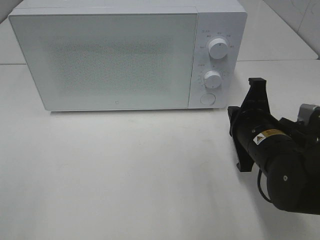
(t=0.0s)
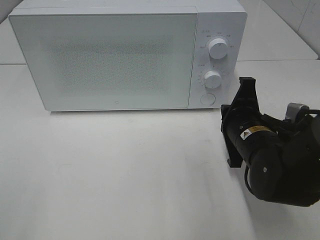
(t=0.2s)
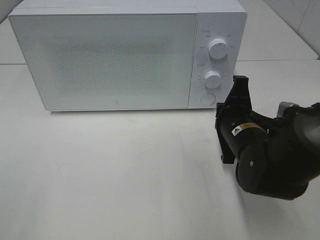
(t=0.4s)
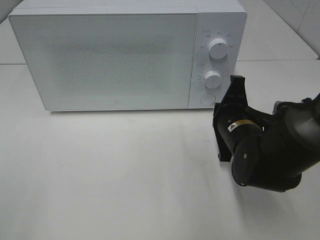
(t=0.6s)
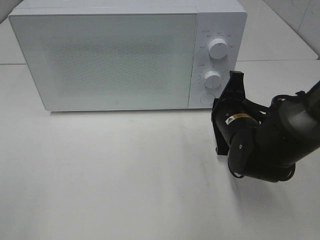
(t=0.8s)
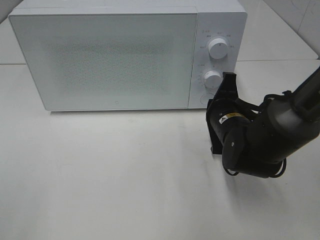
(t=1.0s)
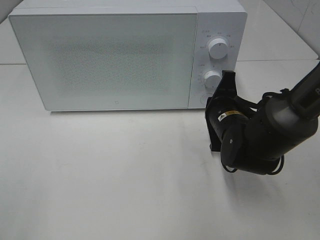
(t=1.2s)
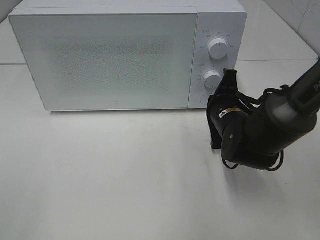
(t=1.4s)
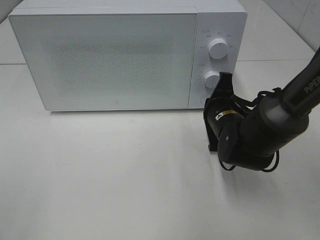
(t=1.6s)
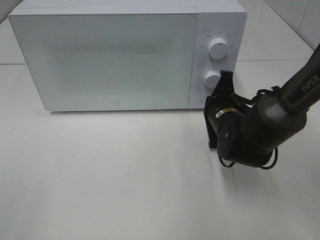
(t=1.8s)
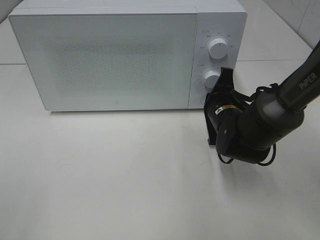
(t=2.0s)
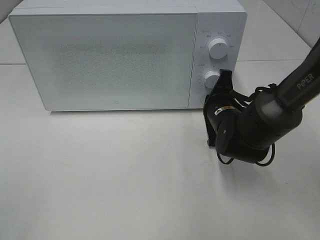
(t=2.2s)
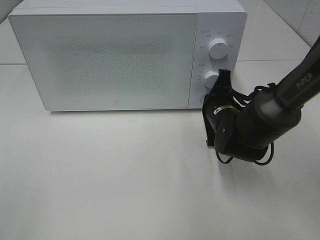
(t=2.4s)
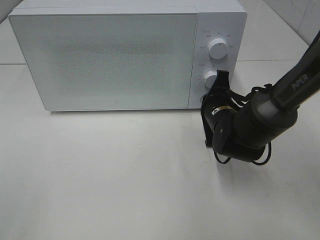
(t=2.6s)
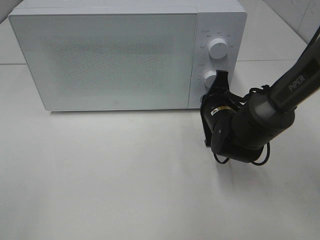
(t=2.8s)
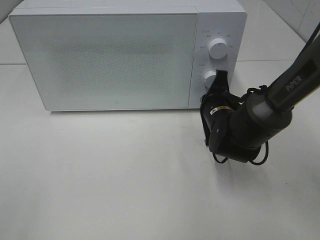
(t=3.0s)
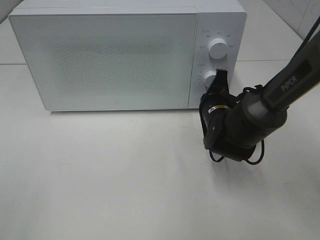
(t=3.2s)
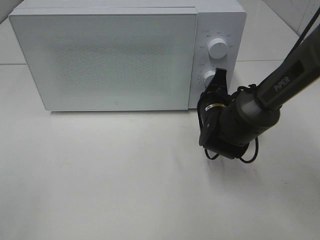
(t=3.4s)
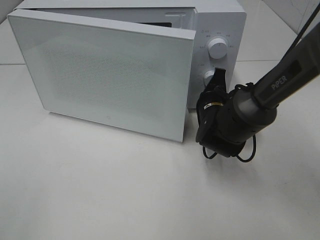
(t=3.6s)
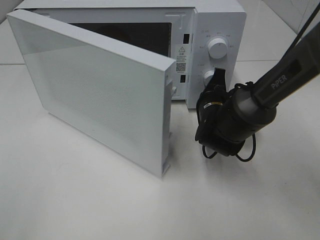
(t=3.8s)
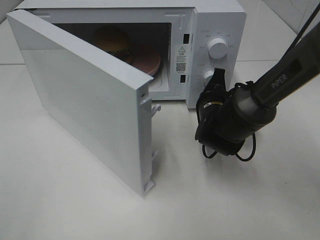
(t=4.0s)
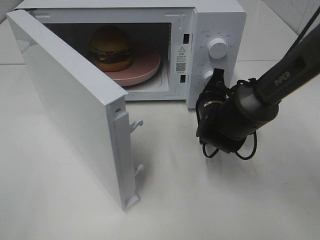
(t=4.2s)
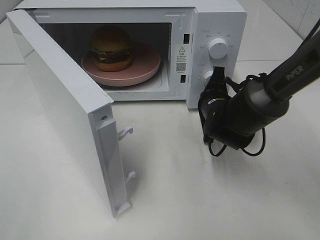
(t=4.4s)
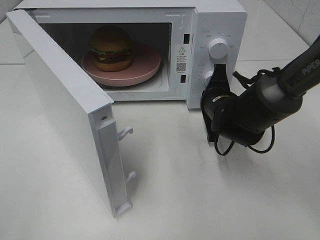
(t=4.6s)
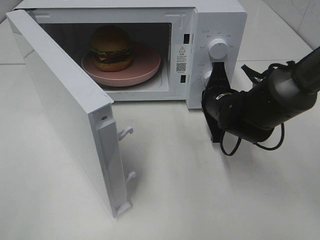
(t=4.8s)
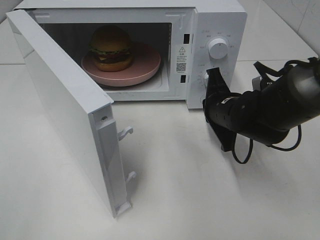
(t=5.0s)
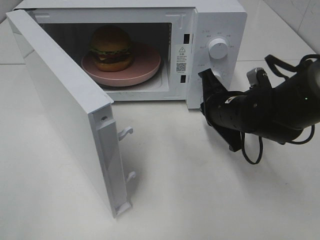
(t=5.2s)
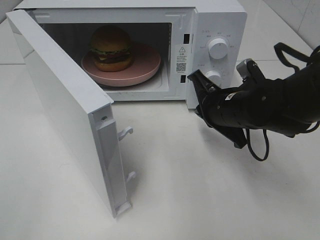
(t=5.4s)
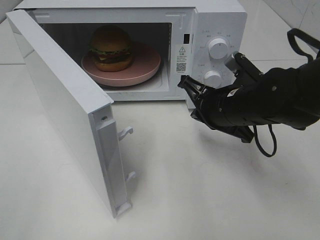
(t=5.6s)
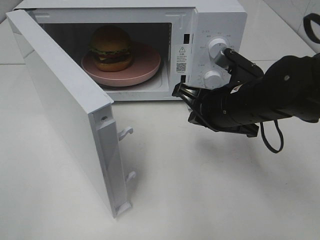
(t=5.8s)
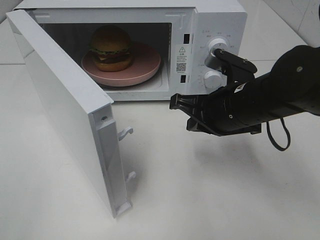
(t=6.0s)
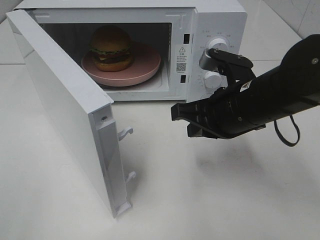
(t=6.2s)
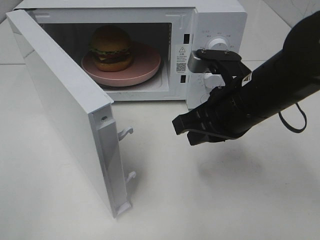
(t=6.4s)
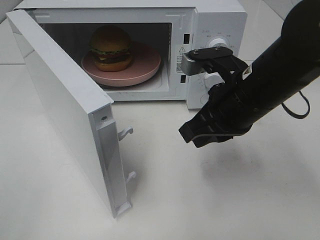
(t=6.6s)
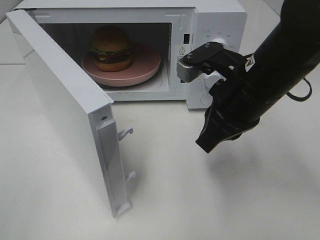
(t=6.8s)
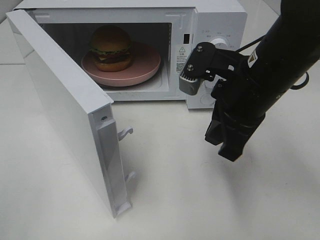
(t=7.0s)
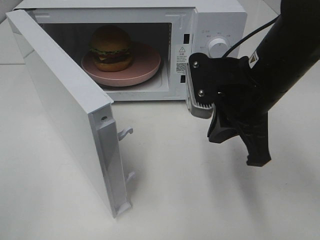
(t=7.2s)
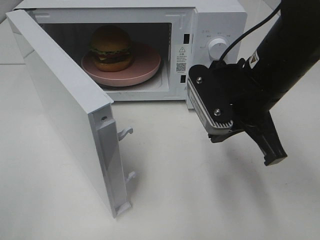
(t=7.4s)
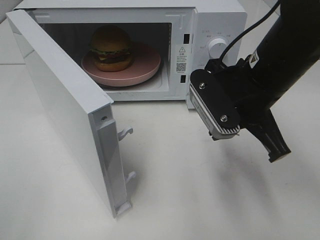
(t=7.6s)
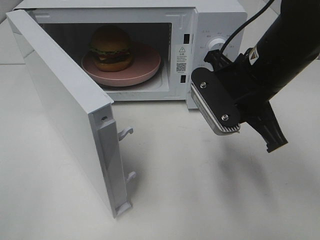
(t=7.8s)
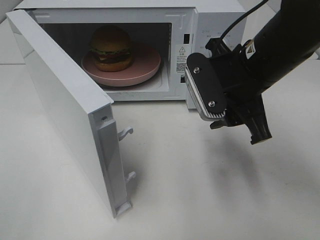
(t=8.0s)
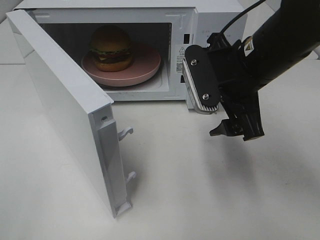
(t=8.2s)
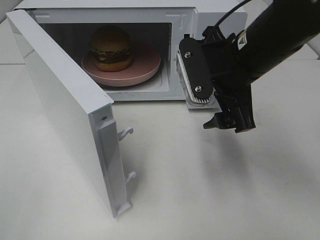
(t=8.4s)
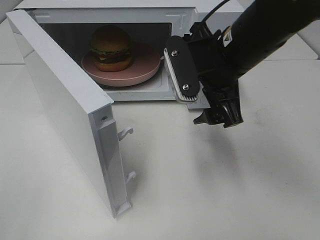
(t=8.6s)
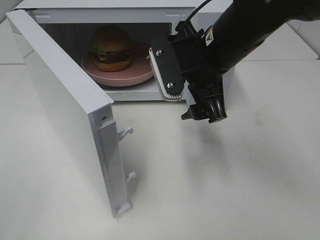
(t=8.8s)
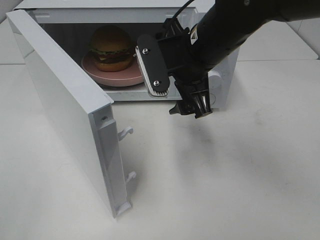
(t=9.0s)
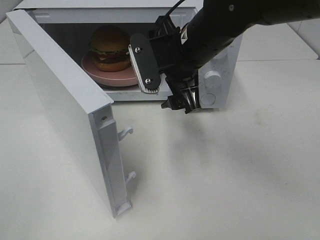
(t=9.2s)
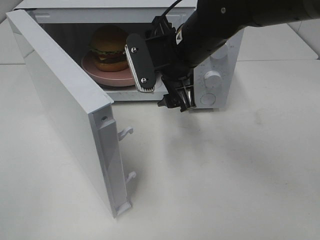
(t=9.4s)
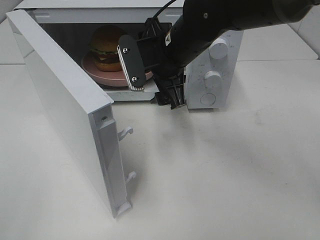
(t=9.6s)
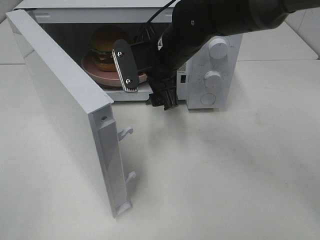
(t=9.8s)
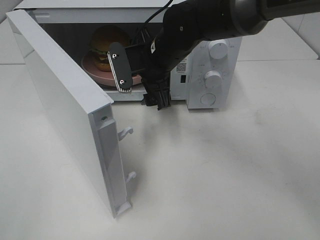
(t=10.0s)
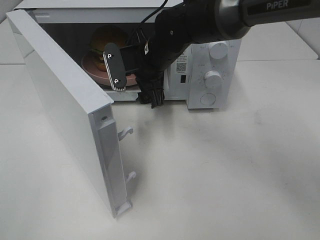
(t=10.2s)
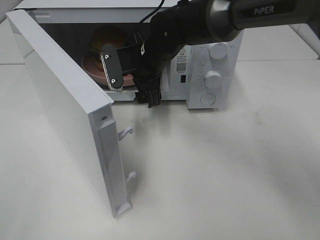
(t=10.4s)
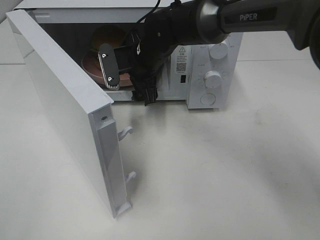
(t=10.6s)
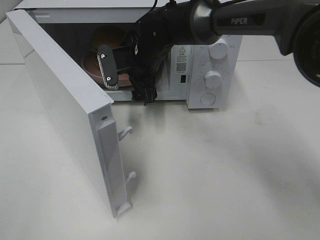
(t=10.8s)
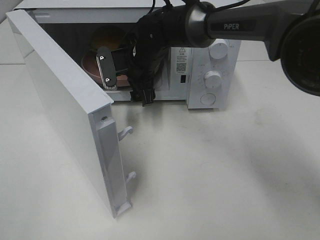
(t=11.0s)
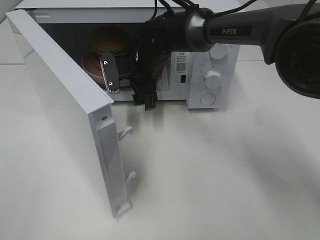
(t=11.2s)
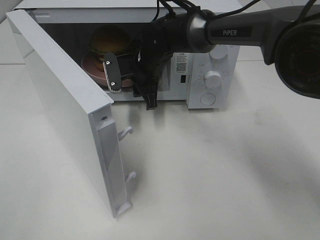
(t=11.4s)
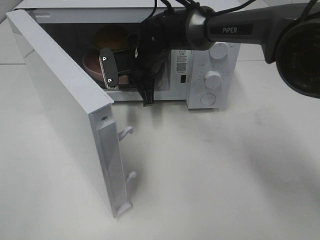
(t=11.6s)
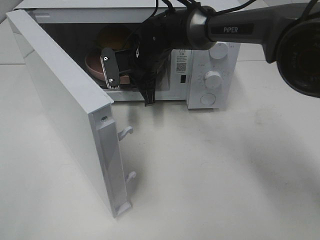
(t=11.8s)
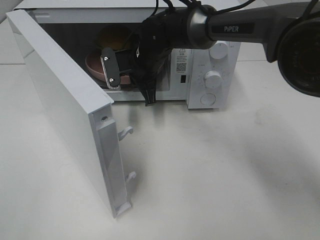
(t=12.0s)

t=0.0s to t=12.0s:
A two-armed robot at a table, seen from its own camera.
Task of the whole recording: Heat the burger.
Step, t=0.0s to t=5.0s: Right hand: press the switch.
Step, t=5.2s to t=11.8s: Right hand: grab the plate with the hamburger.
t=0.0s to t=1.6s: The right gripper shifts some 10 cm forward.
t=1.6s to t=3.0s: There are only small adjustments of the grippers.
t=4.4s to t=6.0s: The right gripper moves backward and upward, roughly 15 cm.
t=6.0s to t=7.6s: The right gripper goes approximately 5 cm upward.
t=7.6s to t=9.0s: The right gripper heads to the left and forward, covering roughly 10 cm, and opens.
t=9.0s to t=10.4s: The right gripper heads forward, downward and to the left, covering roughly 15 cm.
t=10.4s to t=12.0s: The right gripper closes up.

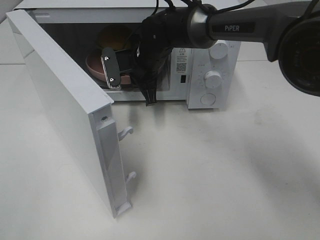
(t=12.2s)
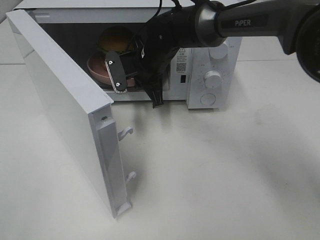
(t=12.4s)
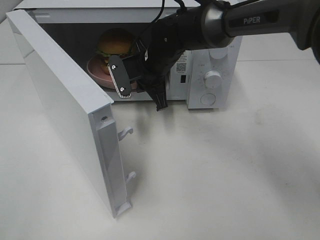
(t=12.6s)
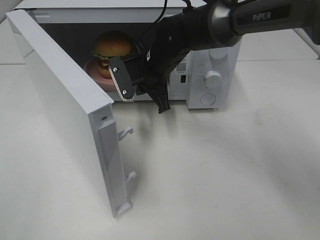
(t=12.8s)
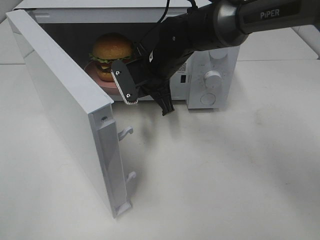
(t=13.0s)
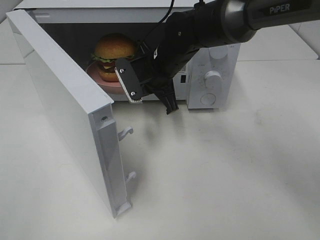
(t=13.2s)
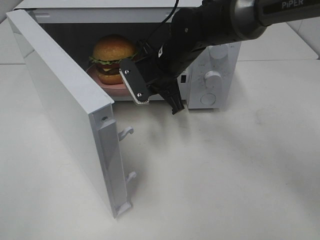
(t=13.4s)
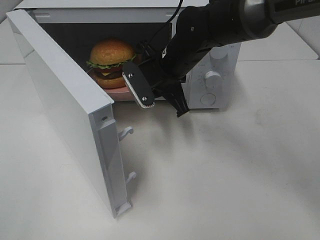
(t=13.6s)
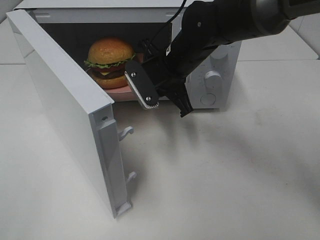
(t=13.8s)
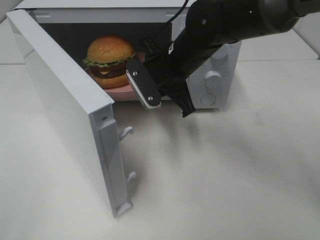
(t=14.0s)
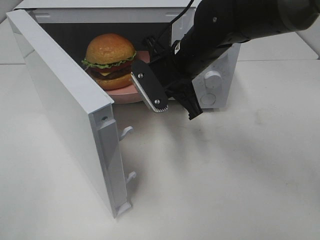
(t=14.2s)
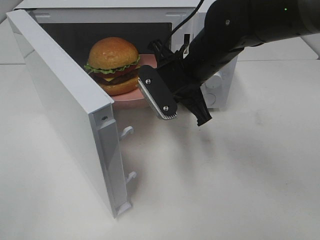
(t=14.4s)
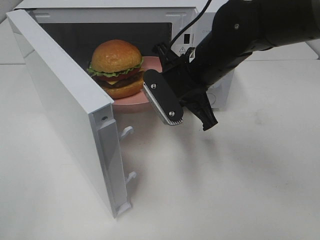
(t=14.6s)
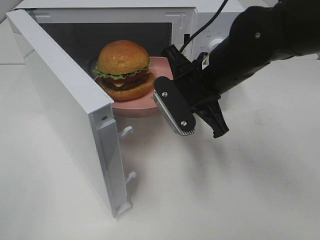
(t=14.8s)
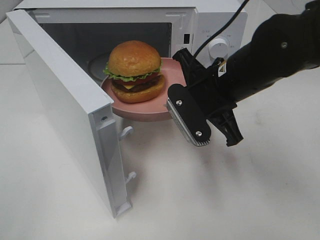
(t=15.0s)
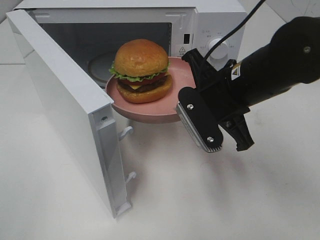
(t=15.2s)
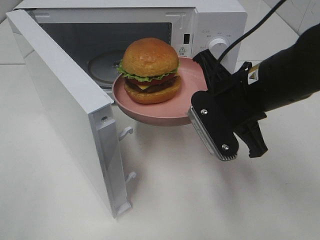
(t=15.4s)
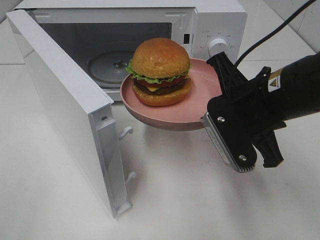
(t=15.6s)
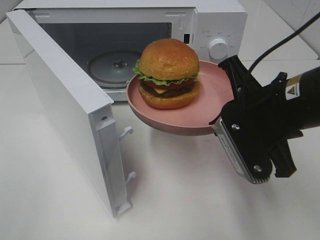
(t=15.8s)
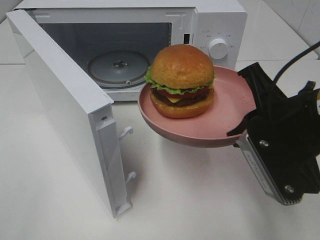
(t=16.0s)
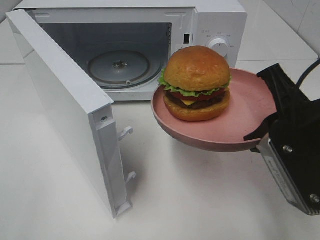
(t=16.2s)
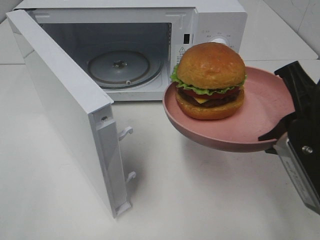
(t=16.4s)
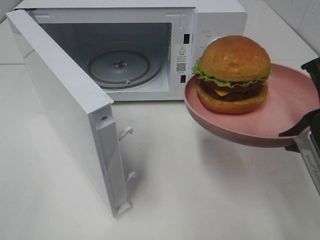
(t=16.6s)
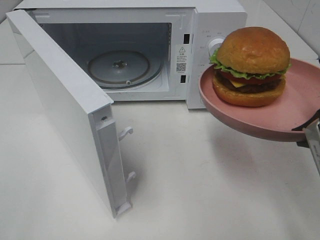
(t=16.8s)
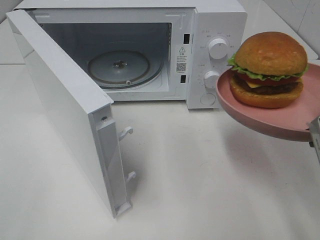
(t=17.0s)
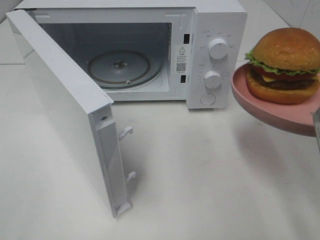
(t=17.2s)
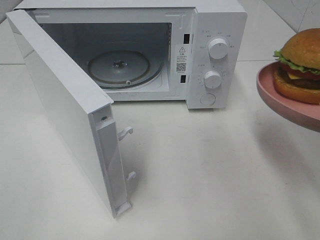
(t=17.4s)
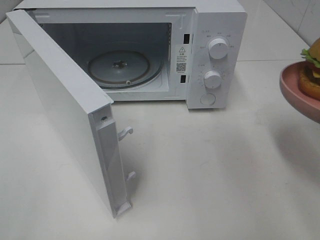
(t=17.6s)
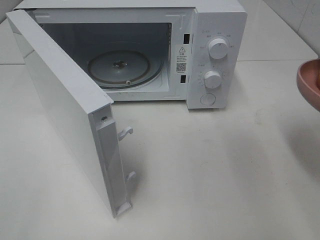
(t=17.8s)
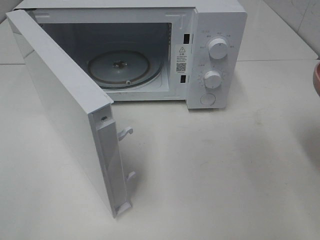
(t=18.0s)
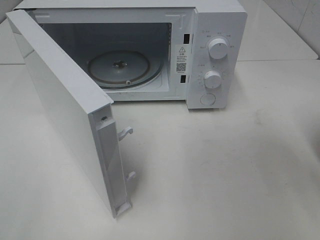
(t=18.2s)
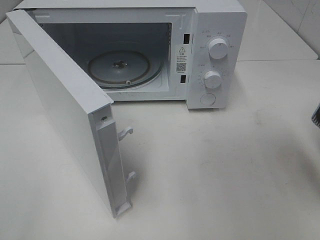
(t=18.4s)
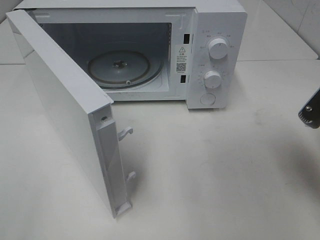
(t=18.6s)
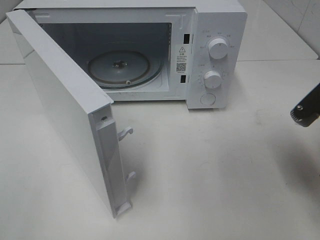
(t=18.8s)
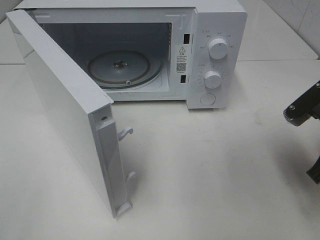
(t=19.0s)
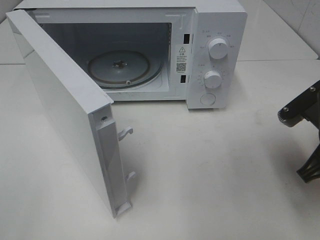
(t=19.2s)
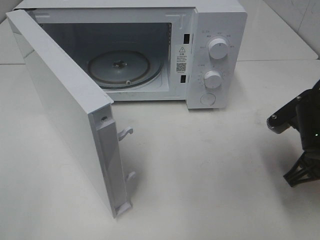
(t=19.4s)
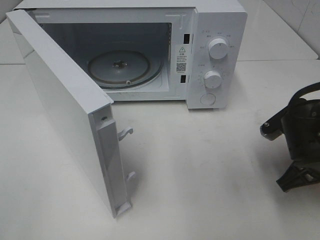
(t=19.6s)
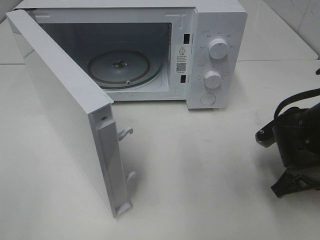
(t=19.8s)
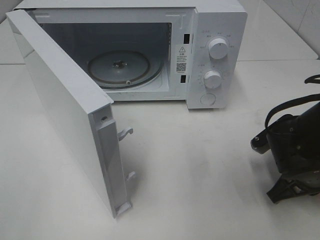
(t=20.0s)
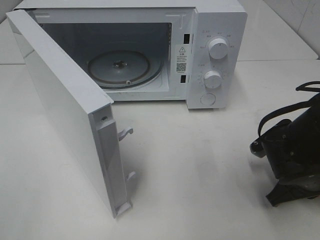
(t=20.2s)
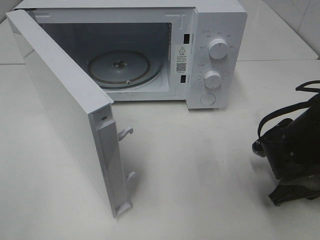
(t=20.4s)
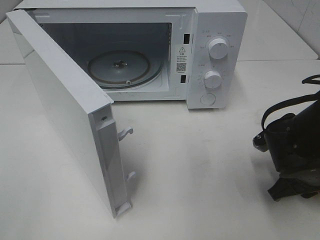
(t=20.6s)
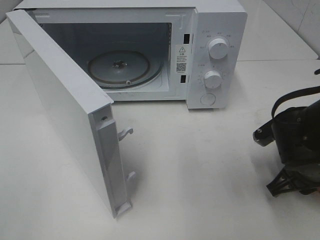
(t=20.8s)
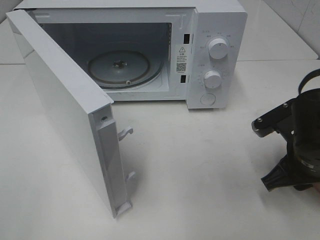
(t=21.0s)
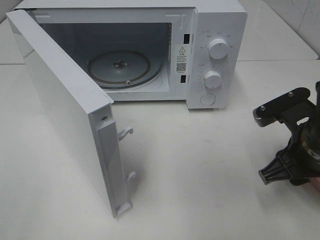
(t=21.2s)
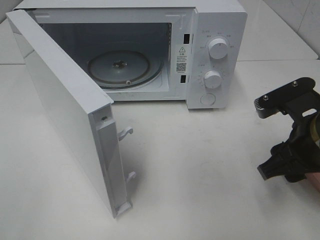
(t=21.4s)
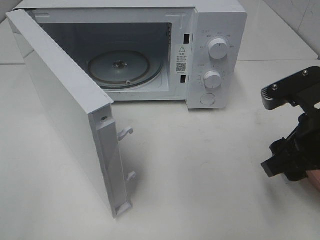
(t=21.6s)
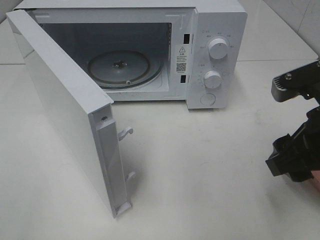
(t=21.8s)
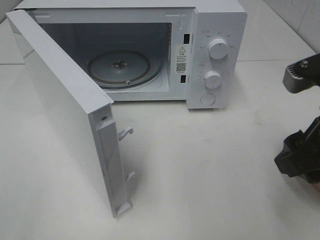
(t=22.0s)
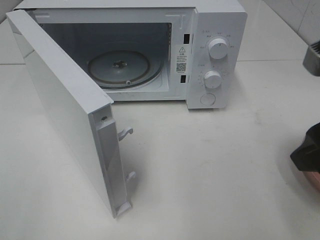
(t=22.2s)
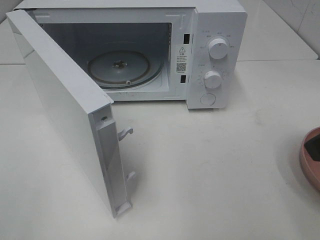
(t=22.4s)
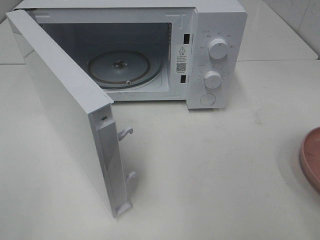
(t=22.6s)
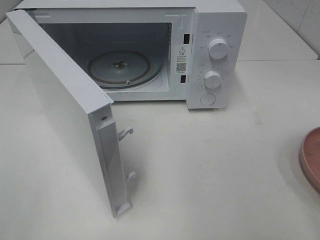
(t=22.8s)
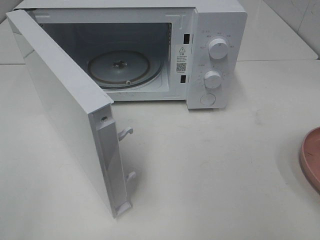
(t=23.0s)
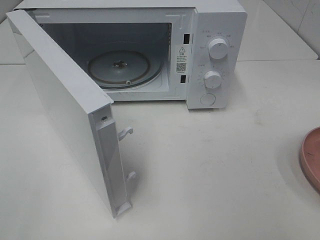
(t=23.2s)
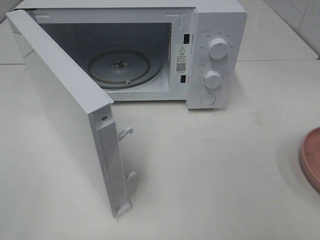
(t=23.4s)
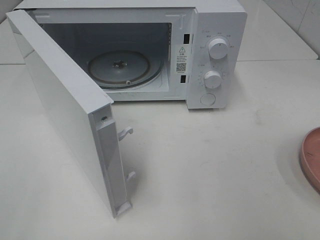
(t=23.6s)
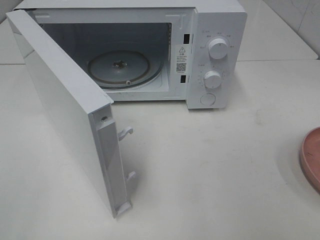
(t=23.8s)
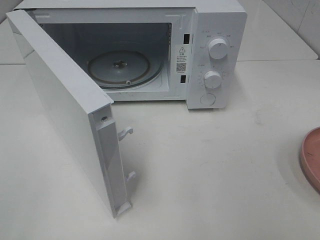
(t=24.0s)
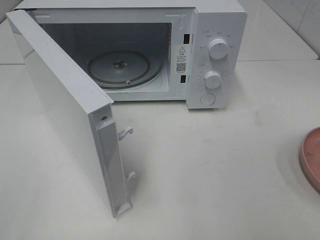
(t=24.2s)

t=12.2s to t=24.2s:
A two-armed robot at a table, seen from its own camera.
Task of the whole recording: Heat the burger.
Step, t=12.2s to t=21.0s: Right hand: place the plate on the table.
t=12.2s to t=13.8s: The right gripper travels backward and to the right by roughly 10 cm.
t=13.8s to t=15.2s: The right gripper travels backward and to the right by approximately 15 cm.
t=15.2s to t=16.6s: The right gripper travels backward and to the right by about 15 cm.
t=16.6s to t=18.2s: The right gripper shifts by roughly 5 cm.
t=18.2s to t=19.8s: The right gripper shifts roughly 15 cm downward and forward.
t=19.8s to t=21.2s: The right gripper moves upward, approximately 5 cm, and opens its fingers.
t=21.2s to t=22.6s: The right gripper travels upward and backward by about 20 cm.
